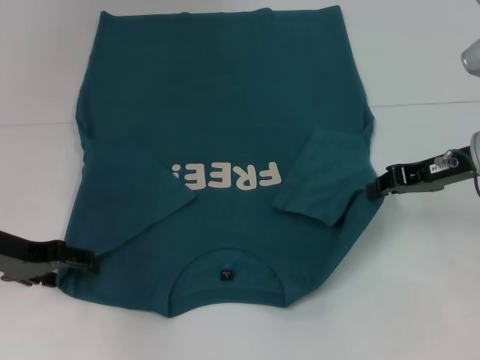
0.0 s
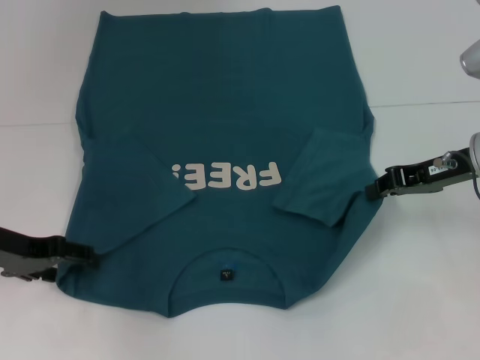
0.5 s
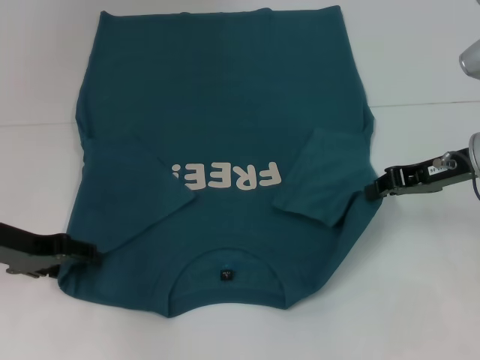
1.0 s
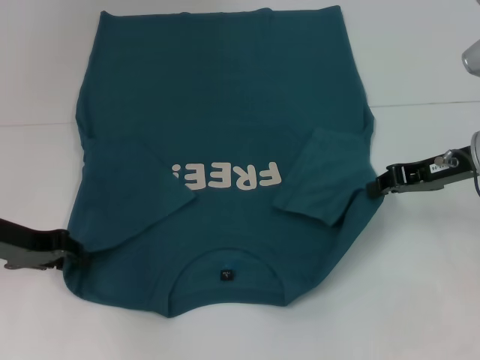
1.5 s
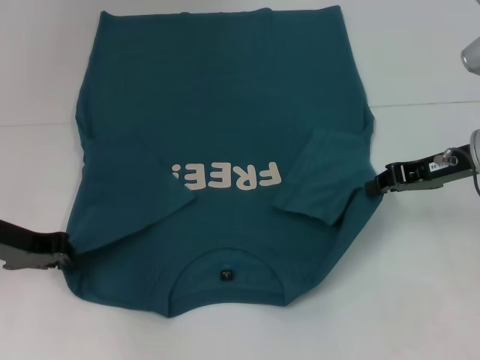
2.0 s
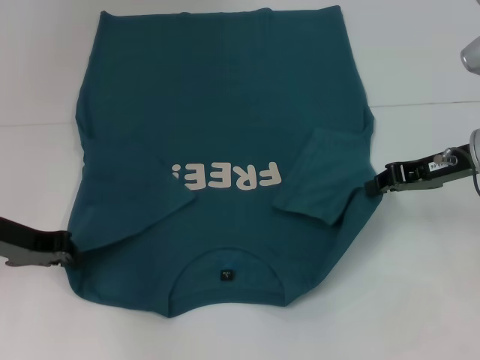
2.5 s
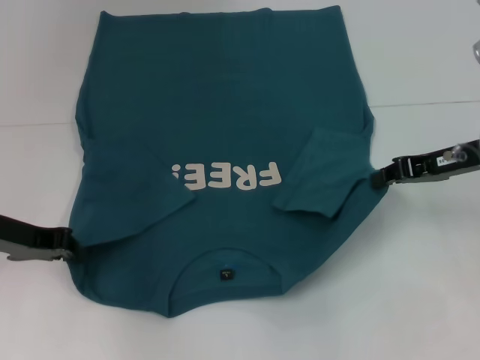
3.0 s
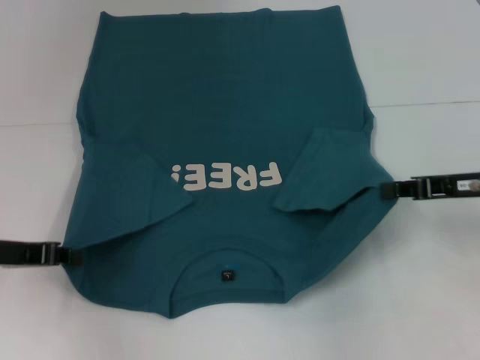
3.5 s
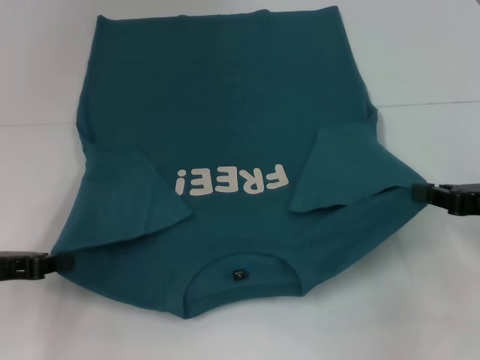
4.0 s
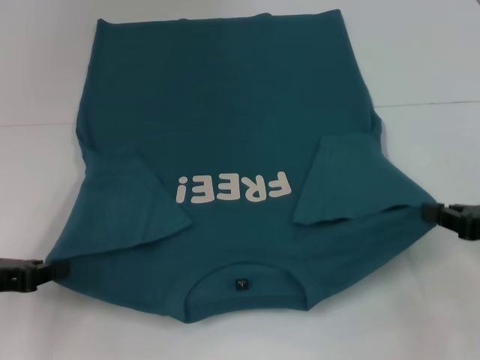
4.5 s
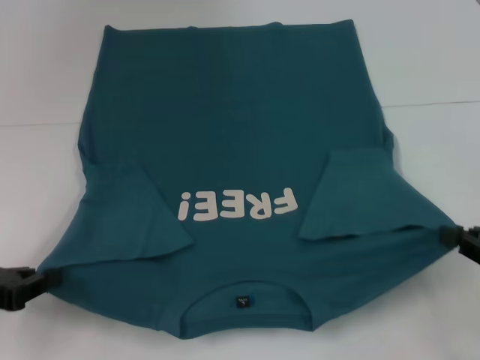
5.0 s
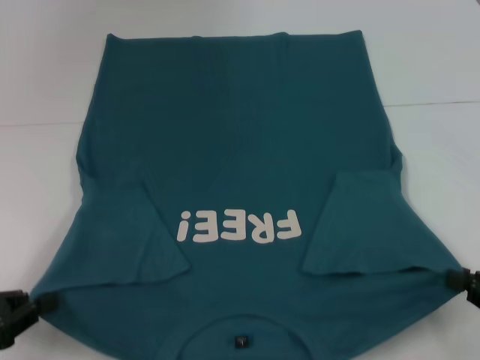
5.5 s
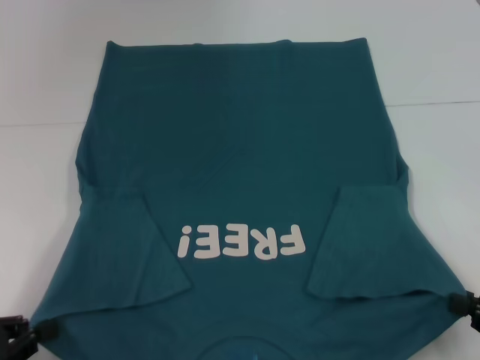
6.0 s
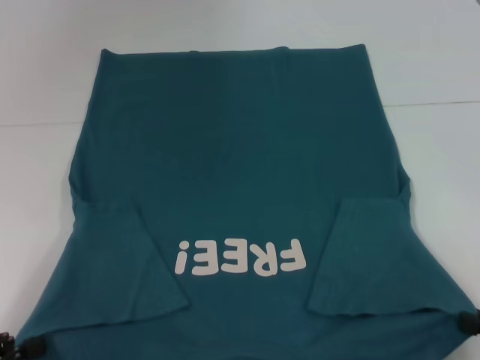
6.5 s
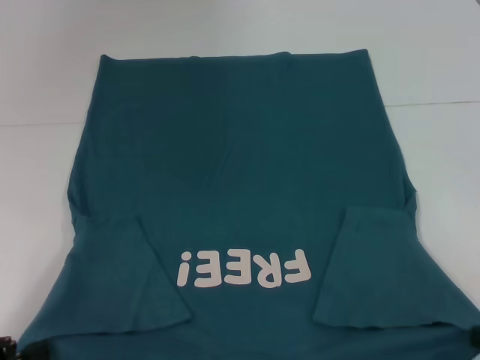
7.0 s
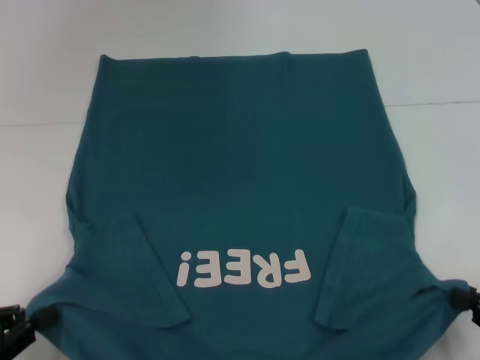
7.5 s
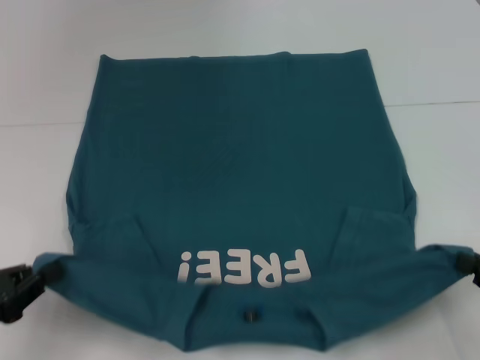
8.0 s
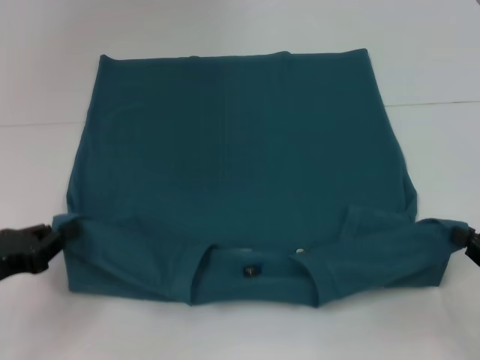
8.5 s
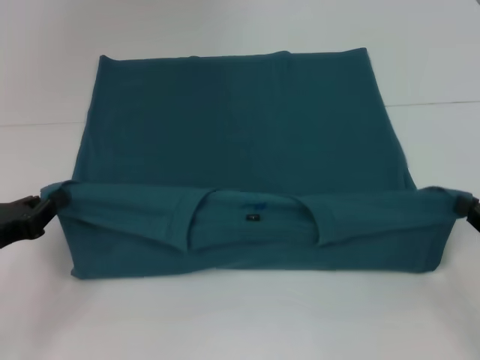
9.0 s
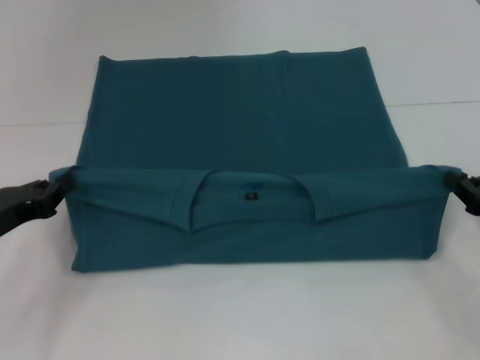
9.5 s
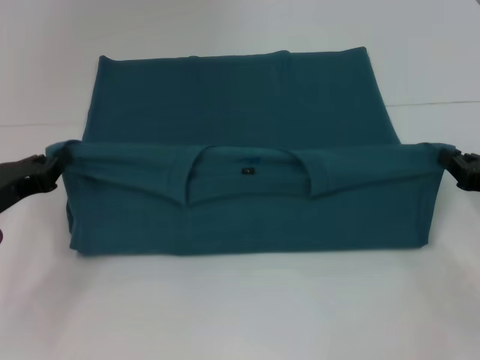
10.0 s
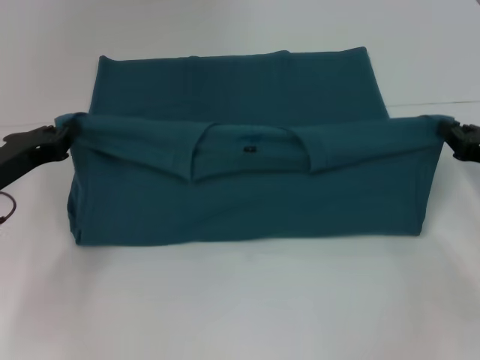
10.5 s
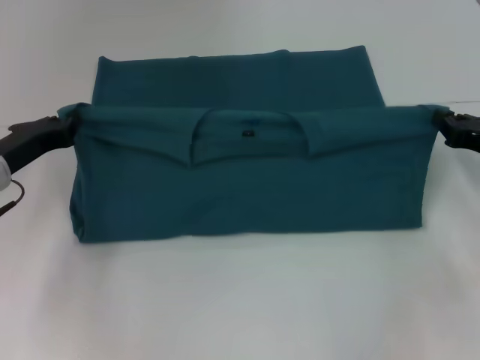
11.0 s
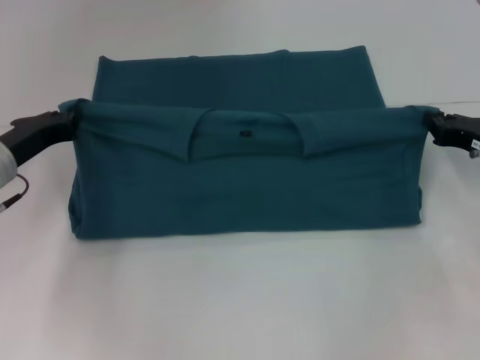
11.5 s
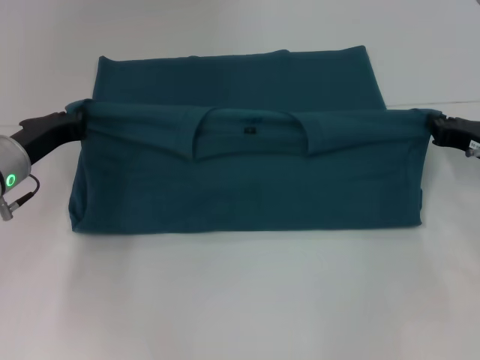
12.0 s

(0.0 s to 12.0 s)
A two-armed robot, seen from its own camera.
Step, 0.0 s - 3.5 s: Grab the bottom left corner with your left hand.
0.0 s - 2.0 s: The left gripper closes.
2.0 s - 4.0 s: The left gripper travels backward by roughly 5 cm; the right gripper heads backward and to the right, covering approximately 10 cm.
4.0 s - 6.0 s: The right gripper moves backward and downward, some 15 cm. The left gripper moves backward, about 10 cm.
6.0 s - 8.0 s: There are only small adjustments of the grippers.
8.0 s - 10.0 s: Both grippers travel together forward, about 10 cm.
10.0 s - 12.0 s: Both grippers travel together forward, some 5 cm.

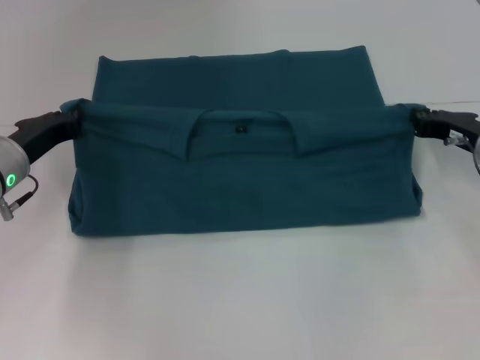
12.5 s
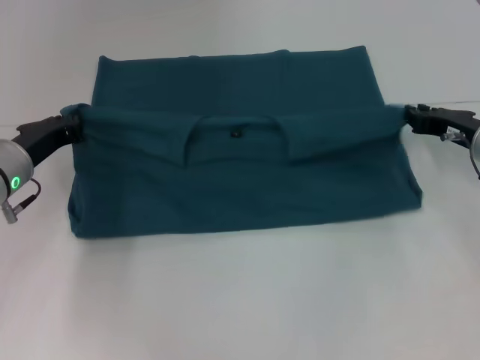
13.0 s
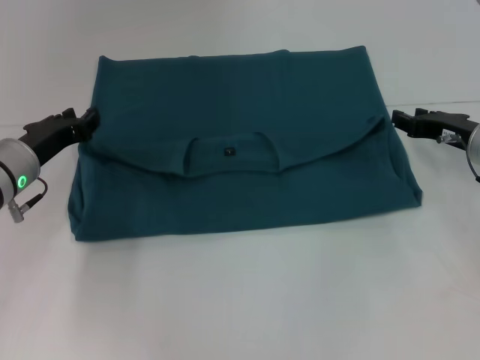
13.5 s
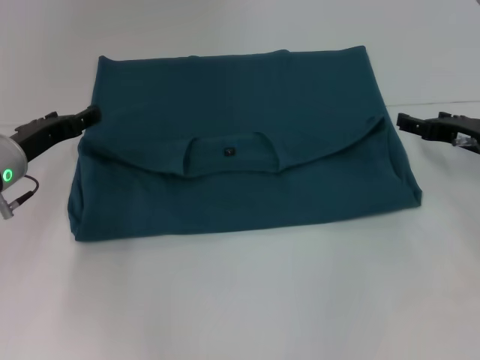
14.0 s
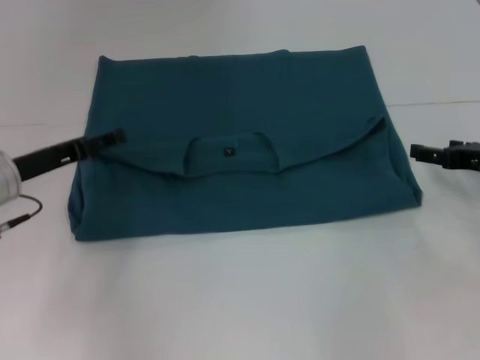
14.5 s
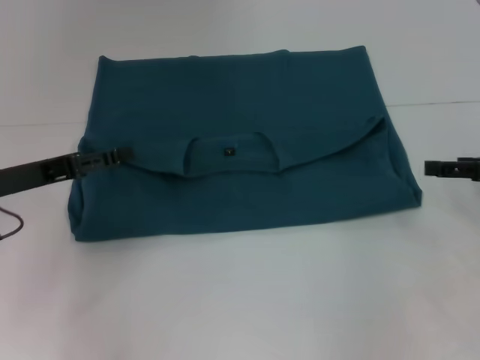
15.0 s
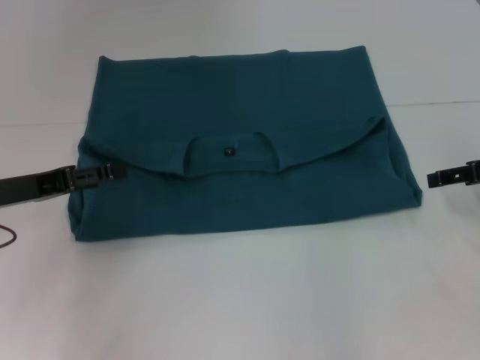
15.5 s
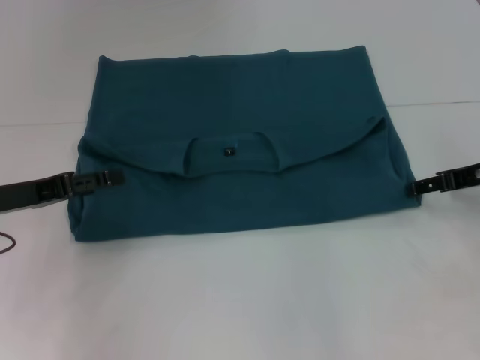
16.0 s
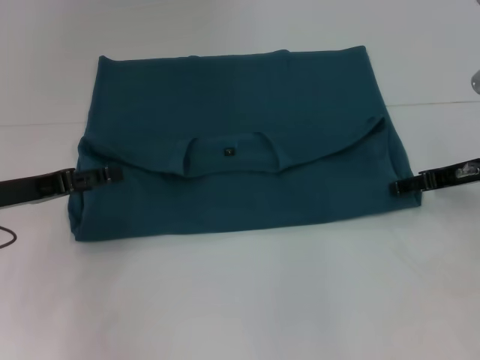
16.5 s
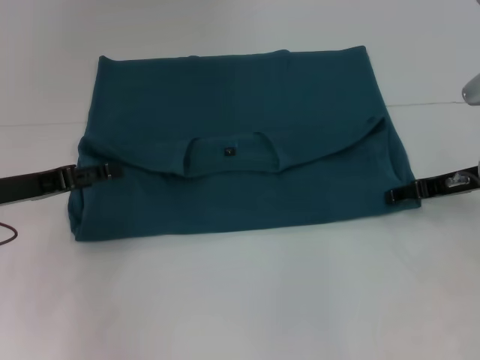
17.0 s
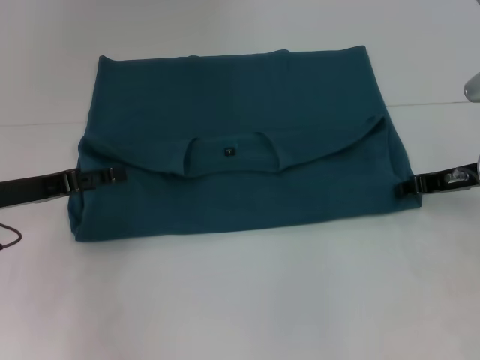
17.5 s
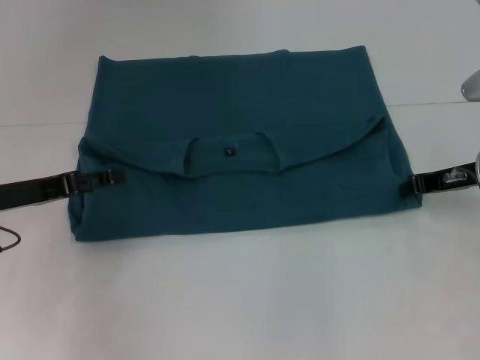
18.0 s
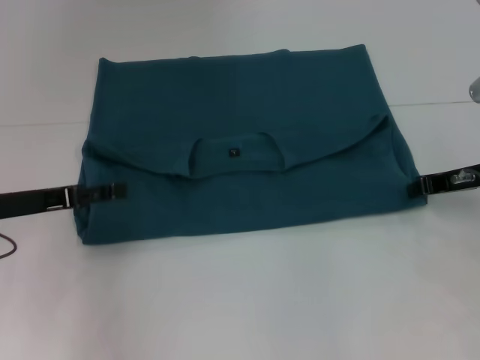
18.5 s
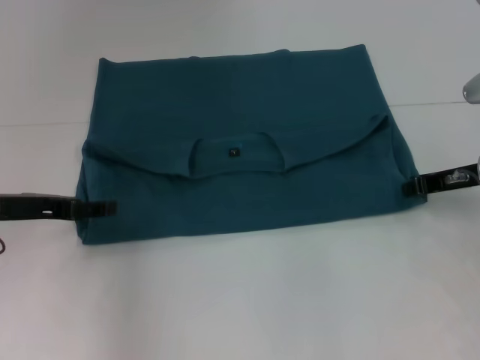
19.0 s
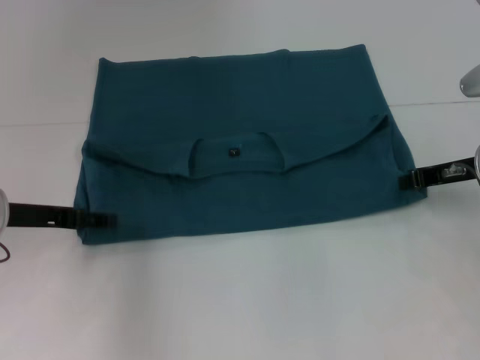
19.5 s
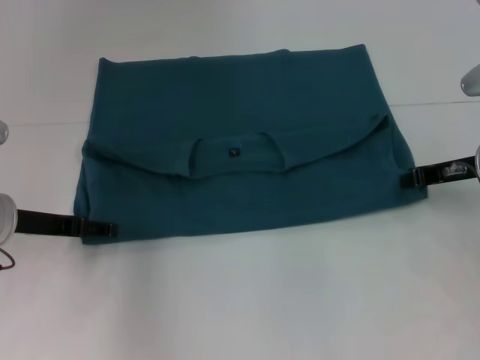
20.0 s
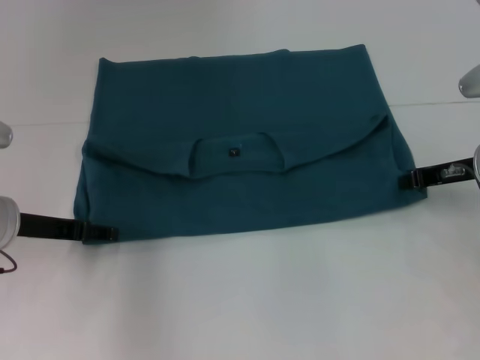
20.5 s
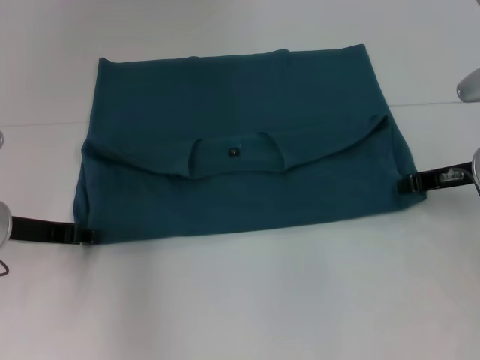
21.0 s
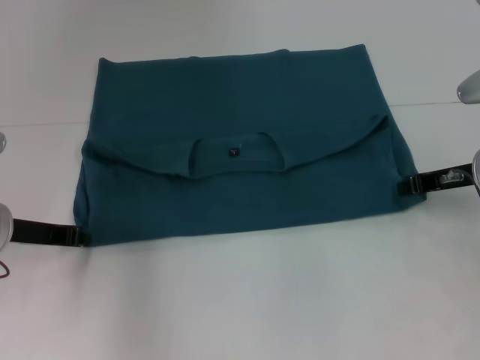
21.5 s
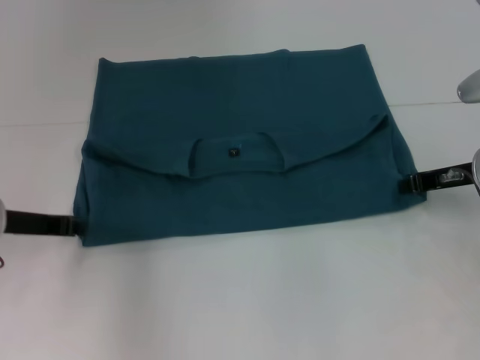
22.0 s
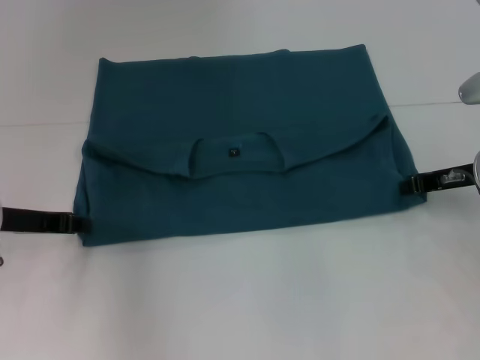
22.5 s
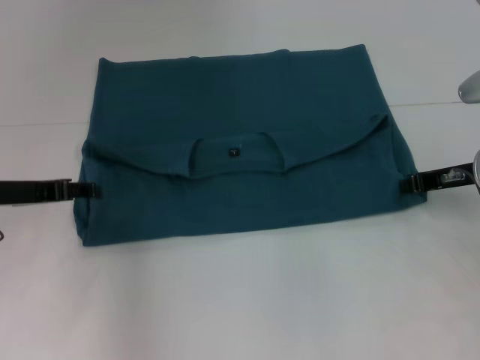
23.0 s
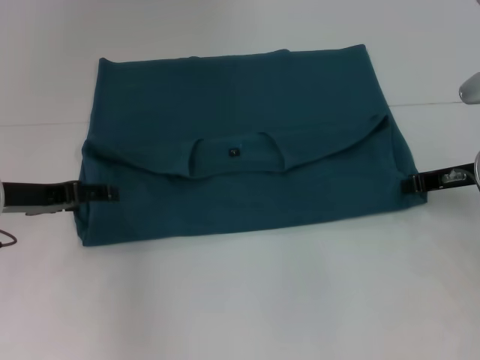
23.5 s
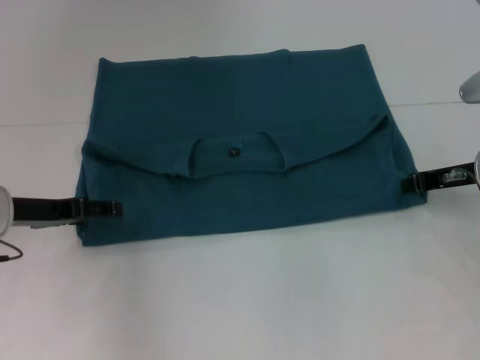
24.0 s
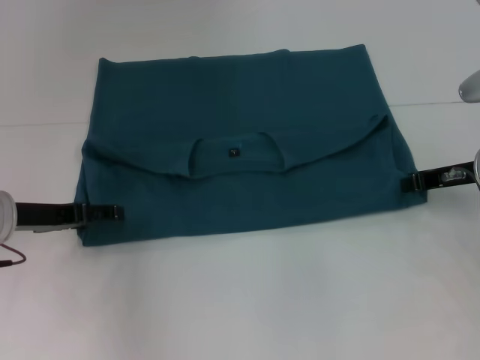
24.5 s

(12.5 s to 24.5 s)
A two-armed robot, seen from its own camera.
12.5 s - 14.5 s: The left gripper opens up; the right gripper shifts by about 5 cm, and opens.
16.5 s - 18.5 s: The right gripper closes its fingers.
20.5 s - 22.5 s: The left gripper closes its fingers.
22.5 s - 24.5 s: The left gripper opens its fingers.

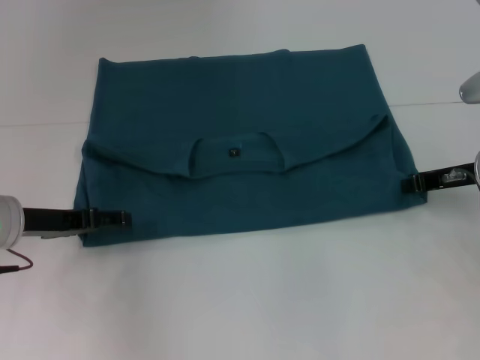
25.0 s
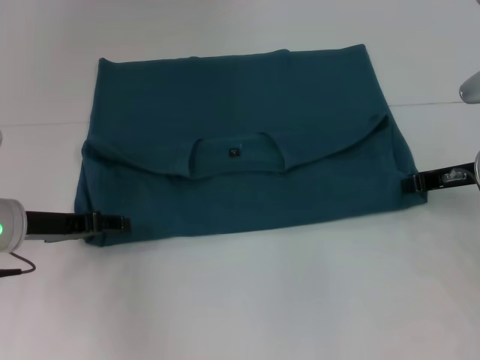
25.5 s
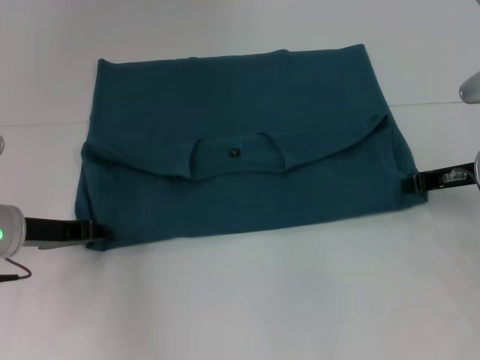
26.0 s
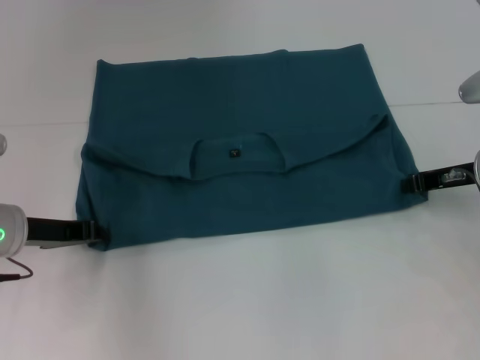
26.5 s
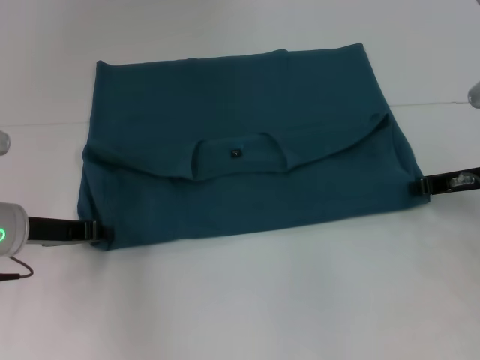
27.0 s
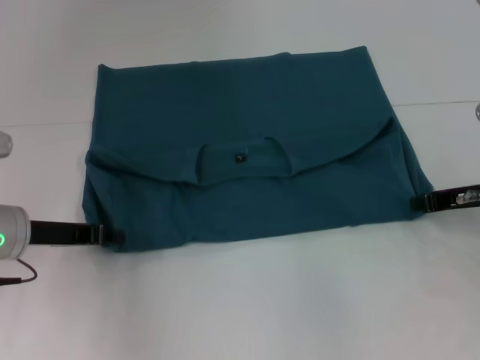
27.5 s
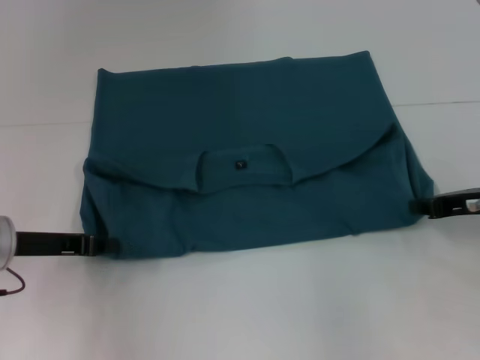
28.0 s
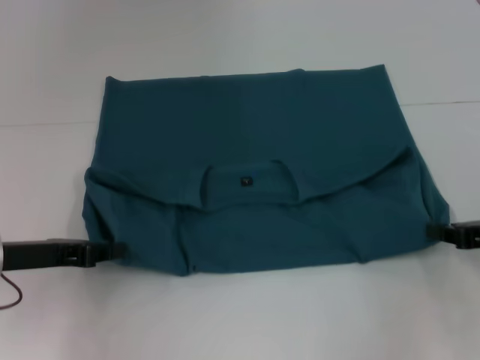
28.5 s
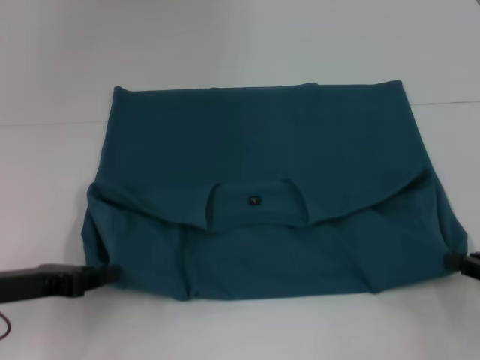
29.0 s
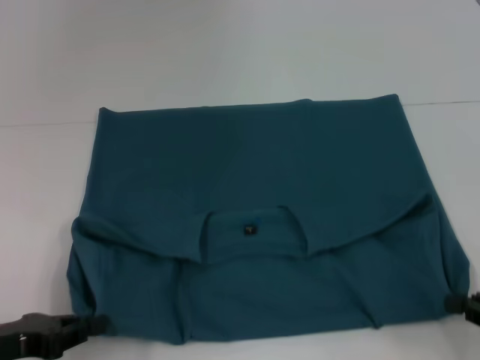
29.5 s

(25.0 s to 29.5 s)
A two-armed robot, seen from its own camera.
25.0 s - 27.0 s: The left gripper closes up.
27.0 s - 29.5 s: The two grippers go approximately 15 cm backward.
